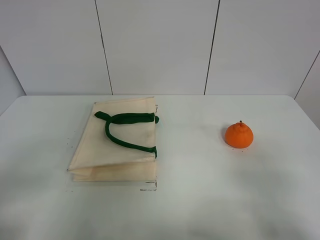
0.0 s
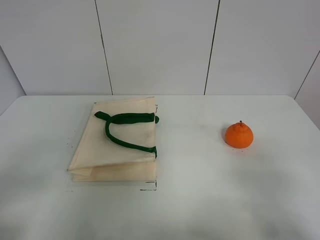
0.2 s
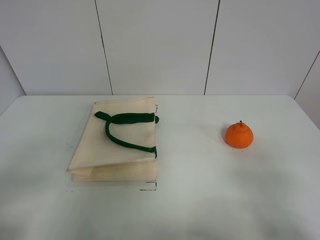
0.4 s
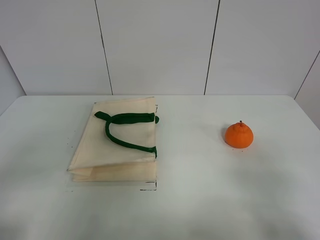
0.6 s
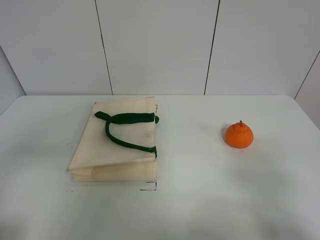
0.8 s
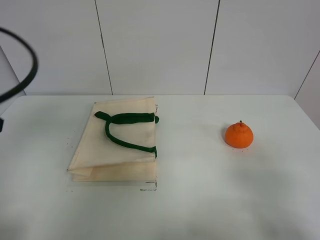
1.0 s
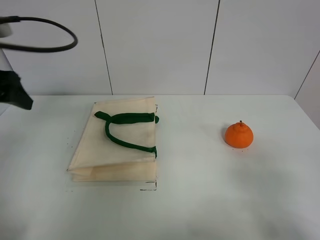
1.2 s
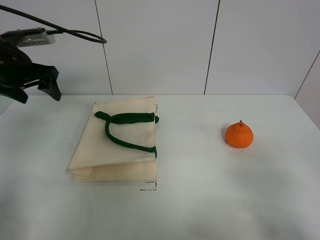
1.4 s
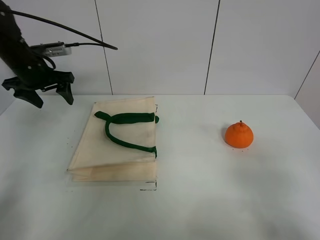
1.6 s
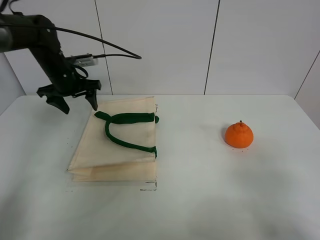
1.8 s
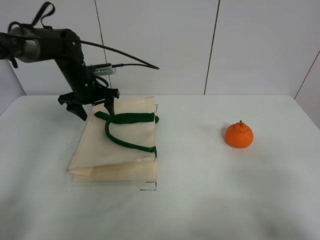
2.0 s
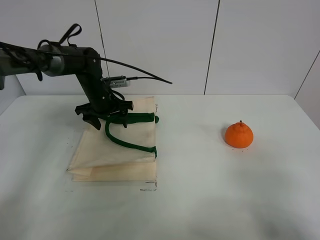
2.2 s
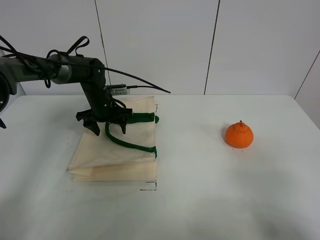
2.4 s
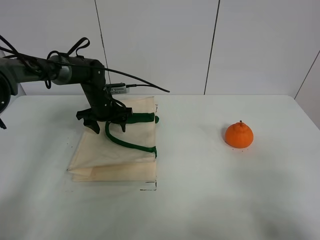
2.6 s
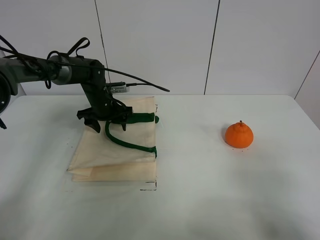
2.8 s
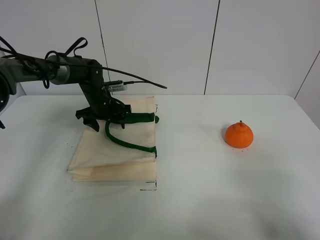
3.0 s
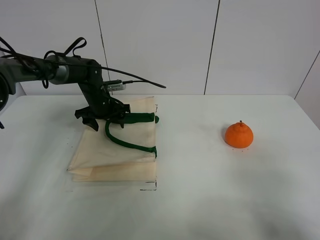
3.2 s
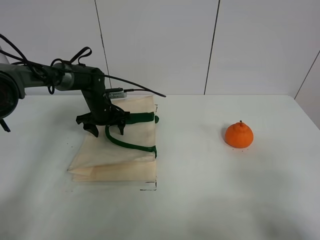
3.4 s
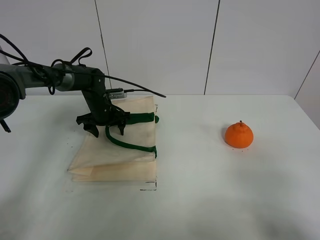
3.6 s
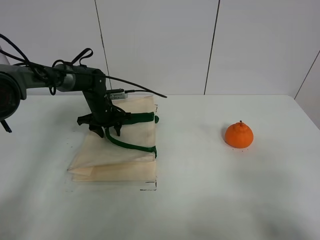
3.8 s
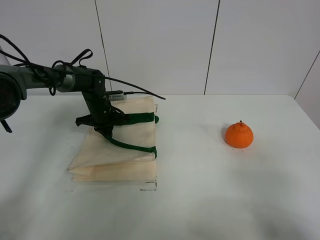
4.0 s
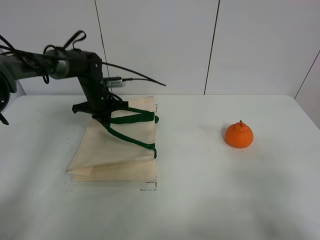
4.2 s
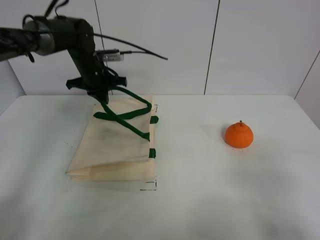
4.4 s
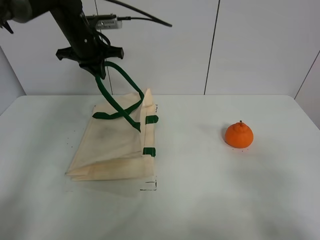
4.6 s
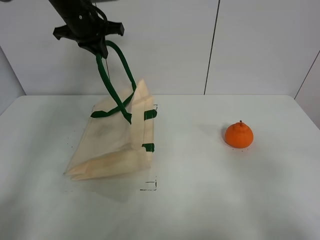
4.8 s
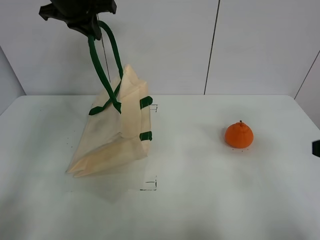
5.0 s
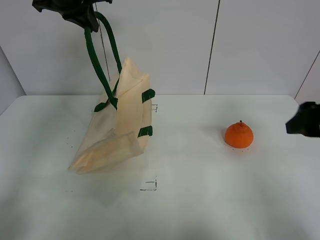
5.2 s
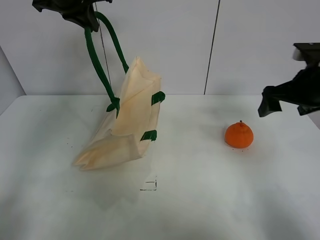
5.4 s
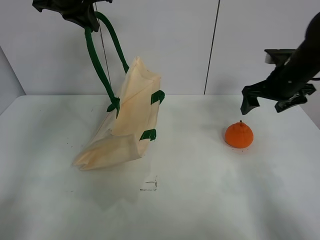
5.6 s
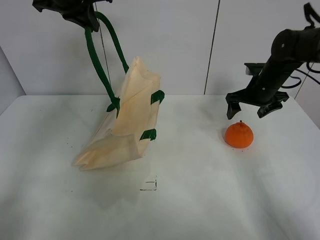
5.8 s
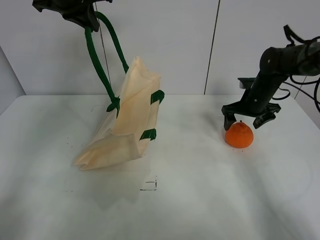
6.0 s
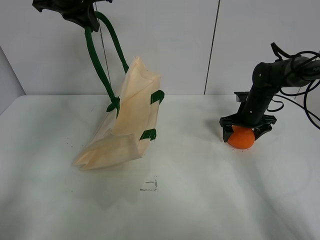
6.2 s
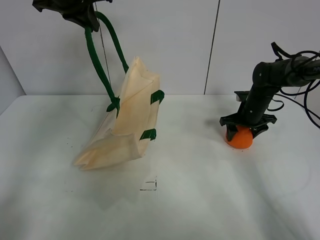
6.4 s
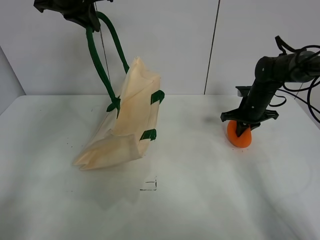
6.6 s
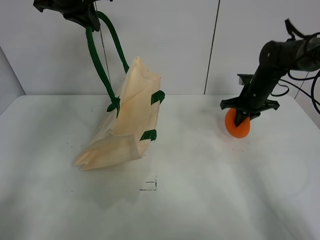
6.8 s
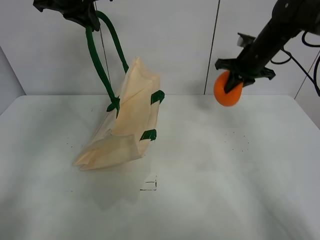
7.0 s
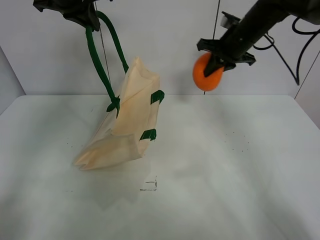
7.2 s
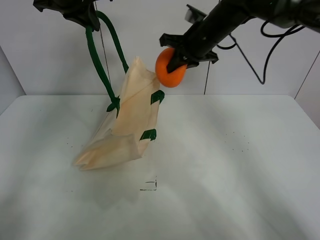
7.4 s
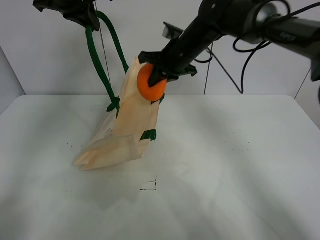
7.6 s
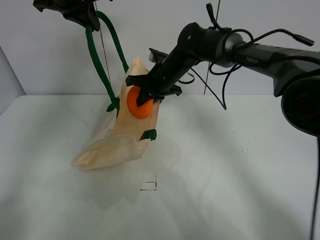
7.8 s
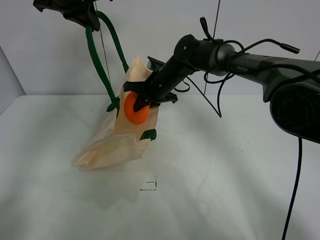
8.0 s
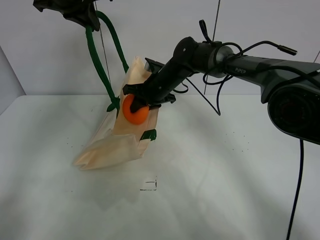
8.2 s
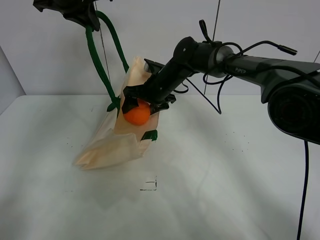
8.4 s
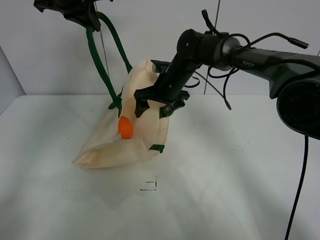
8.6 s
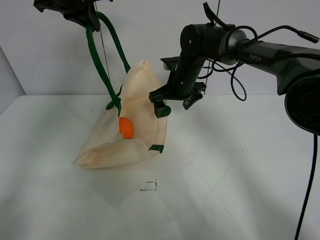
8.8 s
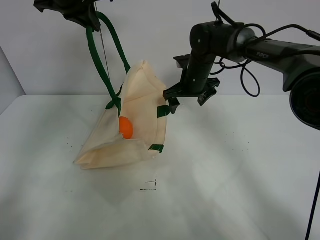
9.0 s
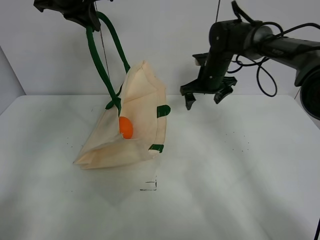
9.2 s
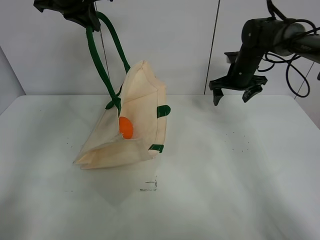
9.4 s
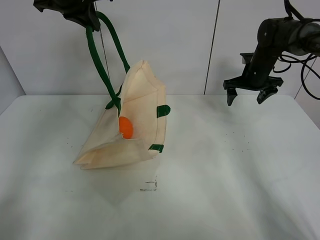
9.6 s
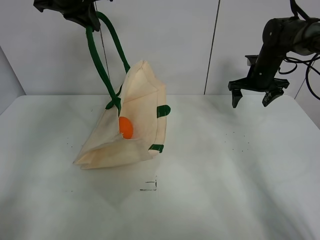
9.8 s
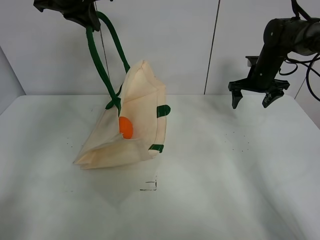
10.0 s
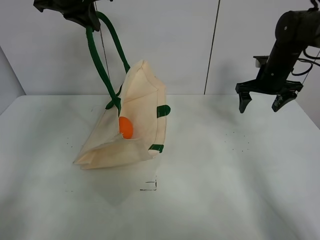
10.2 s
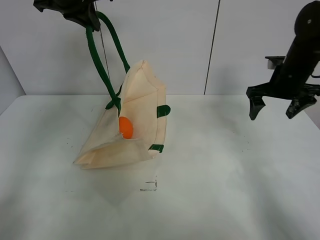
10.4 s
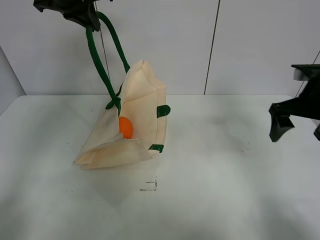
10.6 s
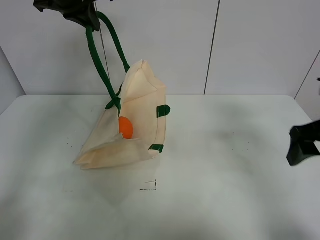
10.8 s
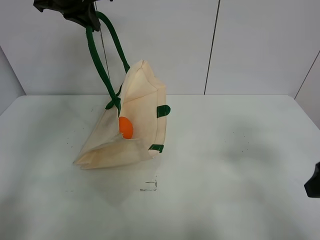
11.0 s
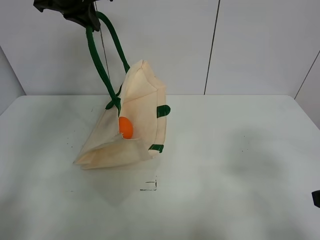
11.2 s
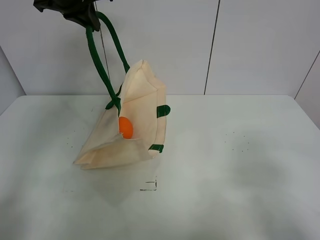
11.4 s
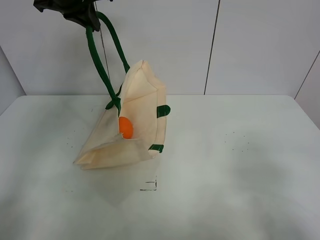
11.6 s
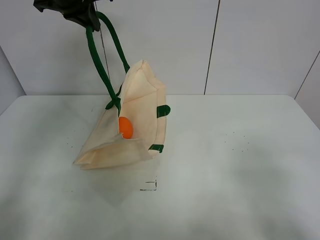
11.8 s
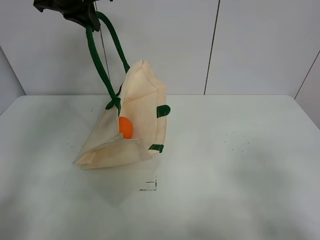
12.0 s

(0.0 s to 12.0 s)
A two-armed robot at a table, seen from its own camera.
Task of the whole recording: open the white linen bag and put the orange in the bag.
Step, 0.0 s - 4.6 s: Lift the handbag with left gripper.
Step, 4.8 s - 6.4 s: Grasp the orange with right gripper.
Step, 6.6 s - 8.4 s: Place the orange in the handbag with right gripper.
0.0 s - 1.6 s: The left gripper is displaced forward by about 40 cm.
1.6 s - 3.0 s: The left gripper travels downward and to the right by some 15 cm.
3.0 s - 4.4 s: The left gripper goes some 10 cm upward, and closes up.
4.4 s - 6.0 s: The right gripper goes about 40 cm forward. The left gripper shifts approximately 20 cm upward.
6.0 s - 7.6 s: The right gripper is displaced to the left and upward by some 25 cm, and closes up.
7.6 s - 9.0 s: The right gripper moves downward and to the right, some 10 cm, and opens its fingers.
9.0 s - 10.4 s: The right gripper is displaced to the right and backward by about 20 cm.
10.4 s - 12.0 s: The right gripper travels backward by roughly 35 cm.

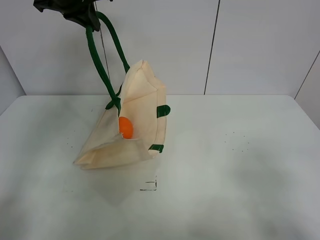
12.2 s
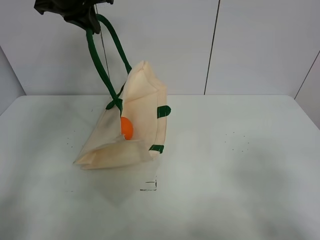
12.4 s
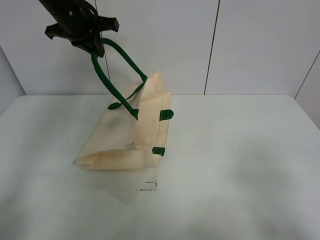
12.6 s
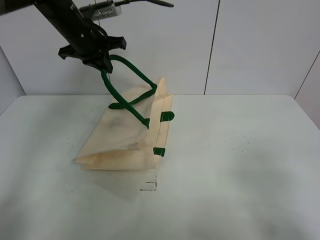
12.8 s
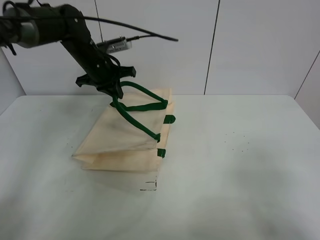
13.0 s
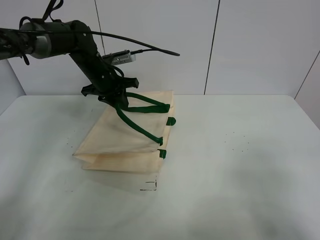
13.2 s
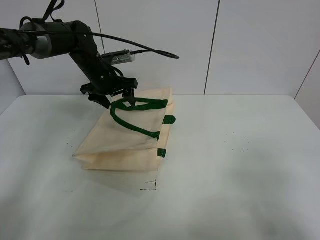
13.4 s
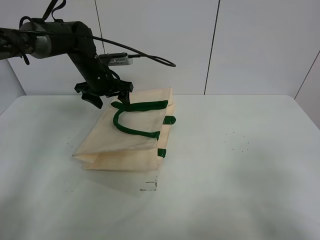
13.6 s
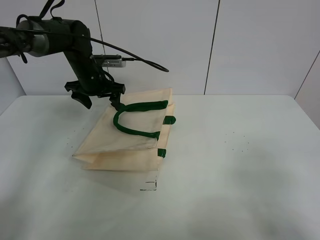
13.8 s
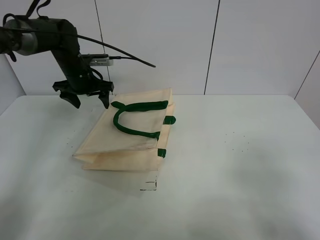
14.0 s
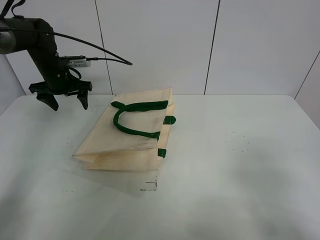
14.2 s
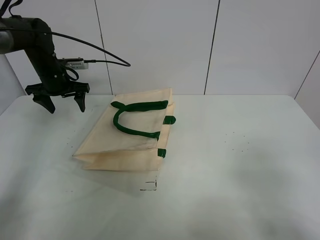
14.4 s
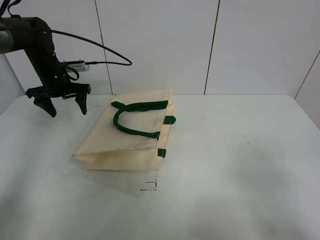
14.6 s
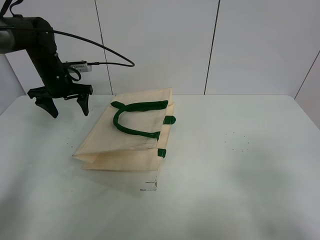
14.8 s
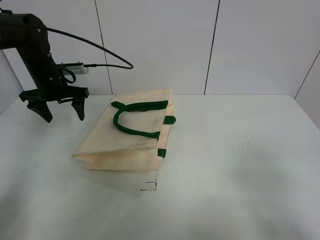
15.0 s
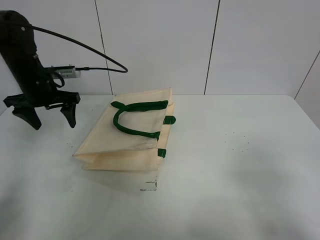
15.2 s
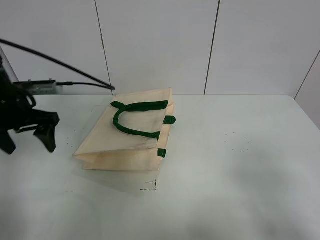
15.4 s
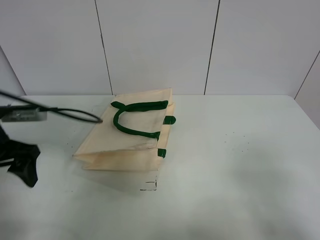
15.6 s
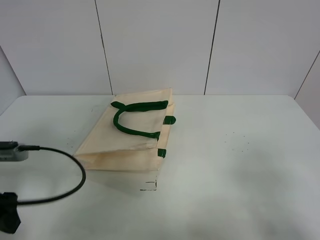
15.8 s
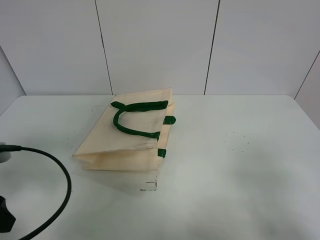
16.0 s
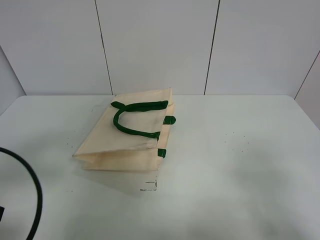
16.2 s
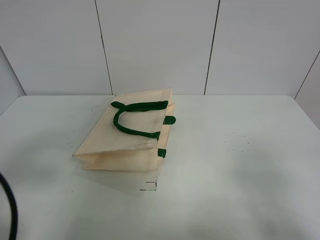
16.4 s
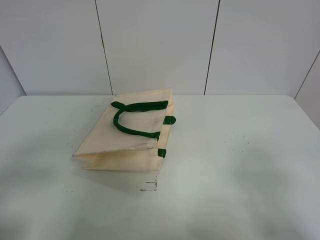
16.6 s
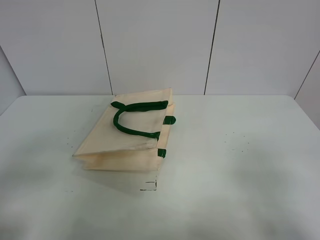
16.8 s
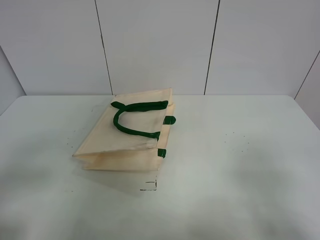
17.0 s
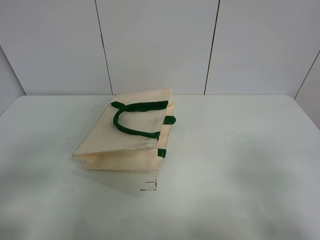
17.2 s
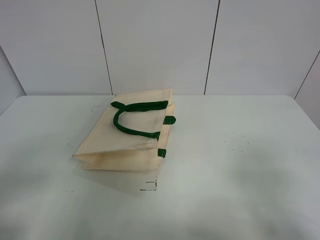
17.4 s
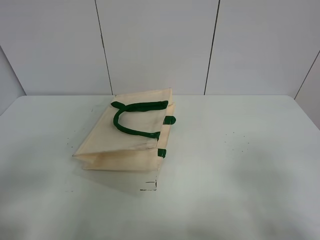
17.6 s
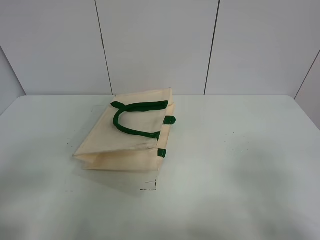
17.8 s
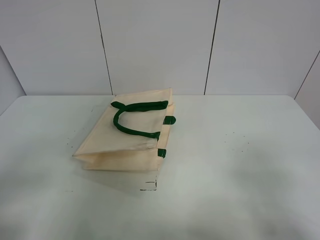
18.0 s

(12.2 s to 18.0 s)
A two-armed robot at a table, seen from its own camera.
Task of the whole recording: open the white linen bag and put the orange in the bag.
12.2 s - 13.6 s: The left gripper heads downward, covering some 20 cm, and opens up.
13.6 s - 15.0 s: The left gripper travels to the left by about 10 cm.
15.0 s - 16.6 s: The left gripper shifts some 35 cm backward.

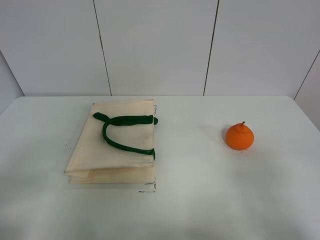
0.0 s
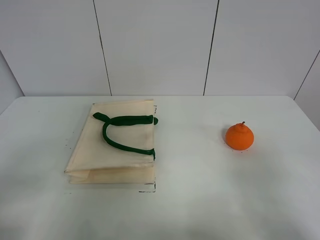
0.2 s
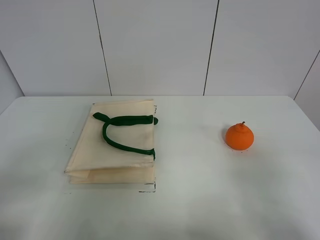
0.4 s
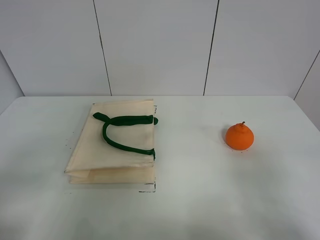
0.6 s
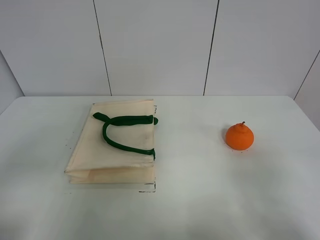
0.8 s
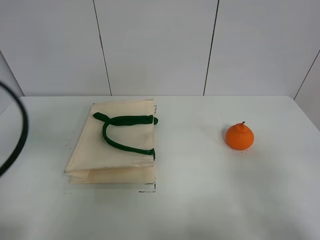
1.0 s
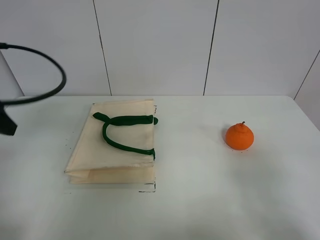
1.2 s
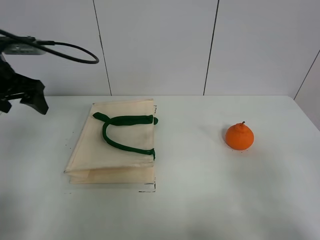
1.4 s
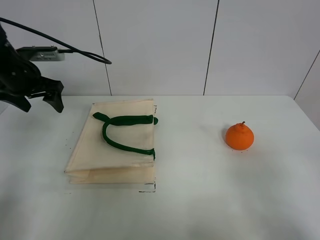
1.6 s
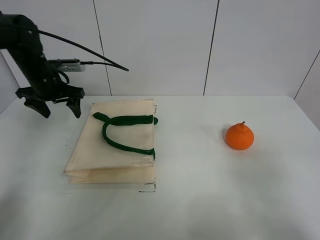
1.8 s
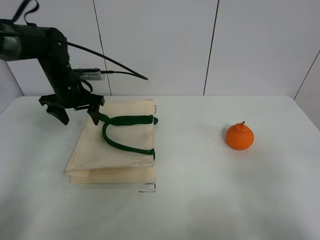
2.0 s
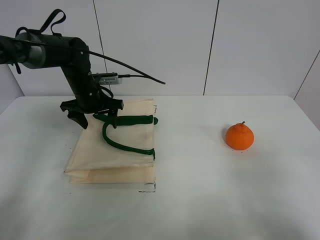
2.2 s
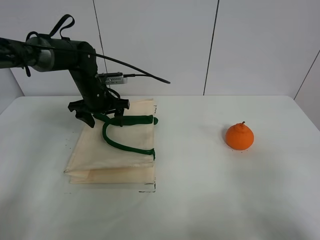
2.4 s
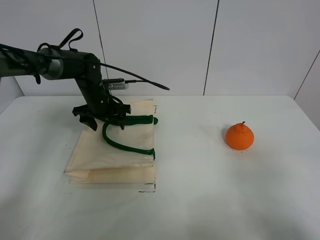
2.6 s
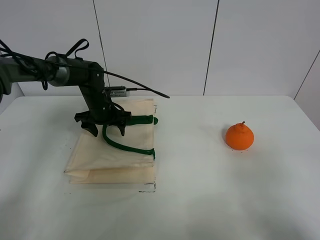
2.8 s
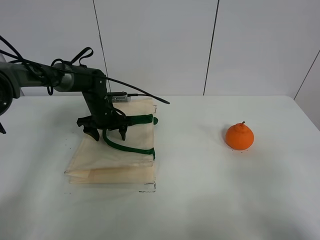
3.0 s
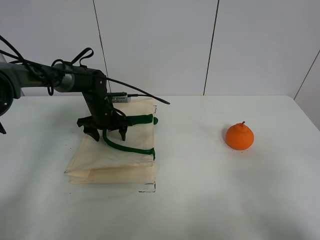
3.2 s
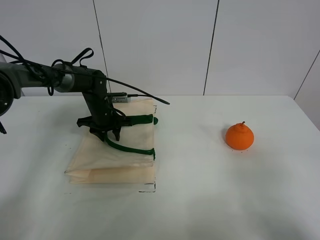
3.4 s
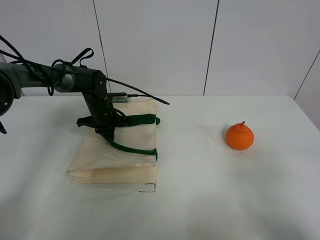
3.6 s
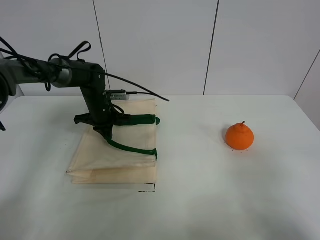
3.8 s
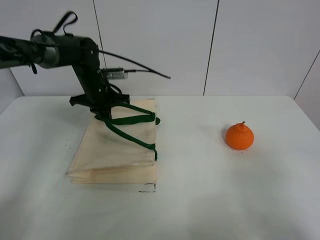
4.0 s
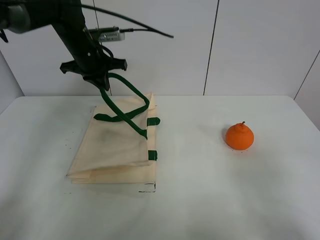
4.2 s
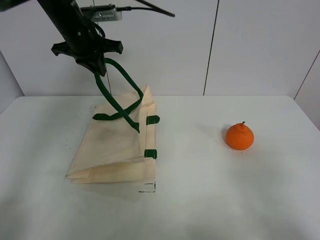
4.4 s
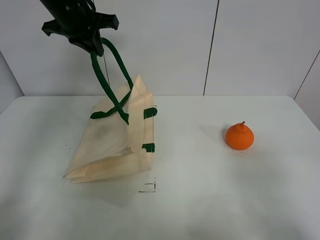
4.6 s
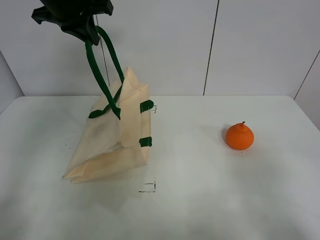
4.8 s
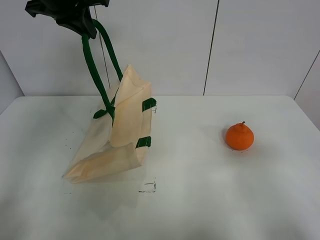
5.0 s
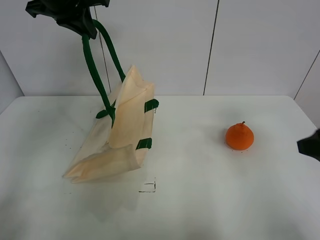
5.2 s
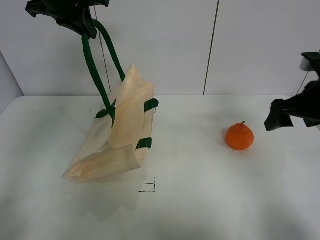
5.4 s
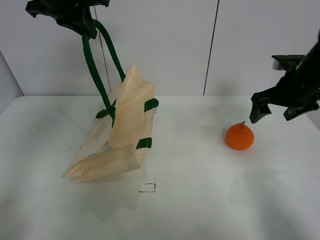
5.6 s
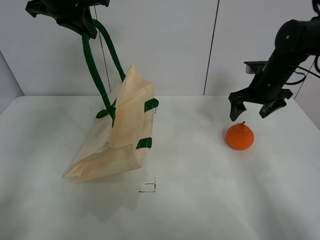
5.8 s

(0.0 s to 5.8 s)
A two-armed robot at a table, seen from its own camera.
Task of the whole recording: open the white linen bag and put the orange in the bag.
Step, 0.0 s - 4.8 s: Lift the handbag with left gripper.
0.0 s - 1.4 s: The left gripper travels forward by about 35 cm.
1.4 s - 2.8 s: The left gripper travels downward, to the right and forward by roughly 25 cm.
2.8 s - 4.4 s: The left gripper heads upward, covering approximately 20 cm, and closes its fingers.
4.4 s - 5.8 s: The right gripper moves forward, about 40 cm. The left gripper travels upward by roughly 10 cm.
